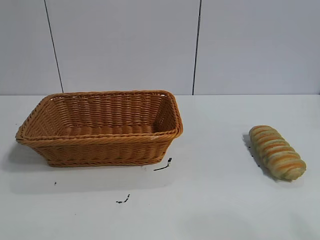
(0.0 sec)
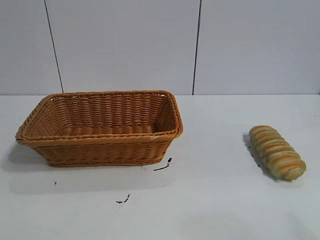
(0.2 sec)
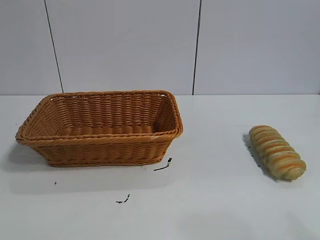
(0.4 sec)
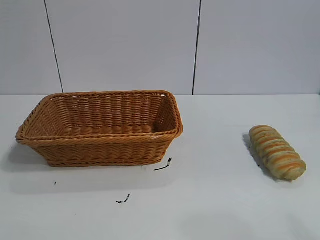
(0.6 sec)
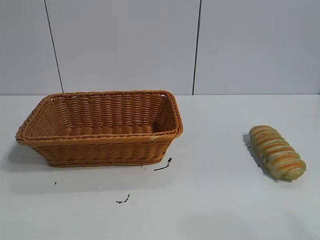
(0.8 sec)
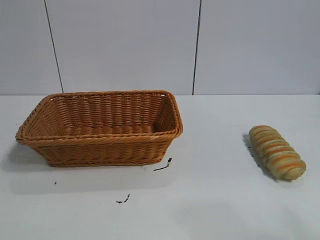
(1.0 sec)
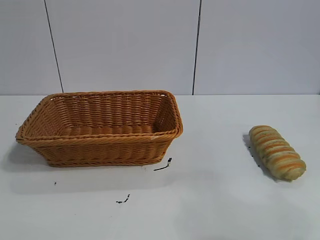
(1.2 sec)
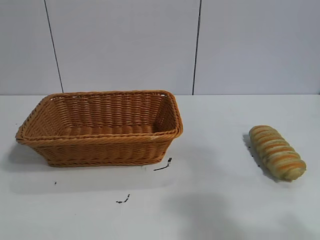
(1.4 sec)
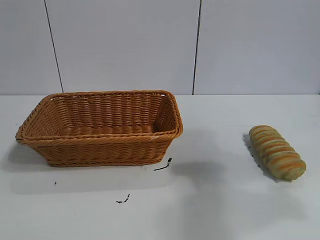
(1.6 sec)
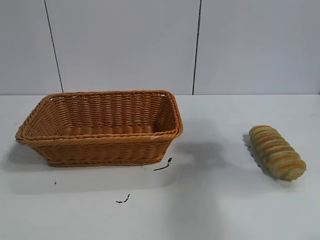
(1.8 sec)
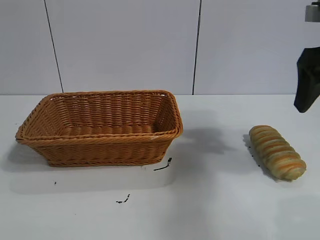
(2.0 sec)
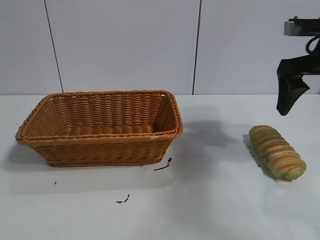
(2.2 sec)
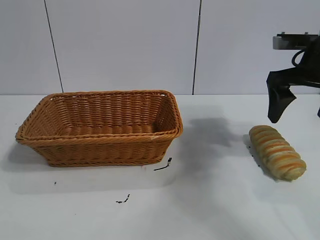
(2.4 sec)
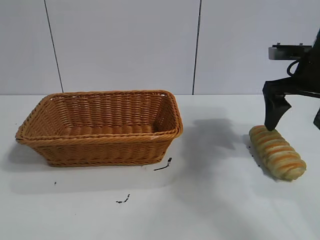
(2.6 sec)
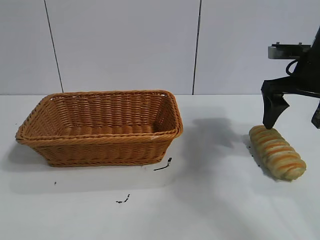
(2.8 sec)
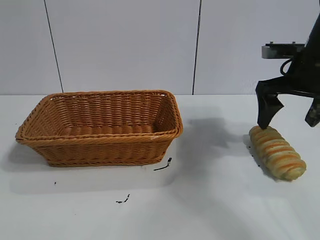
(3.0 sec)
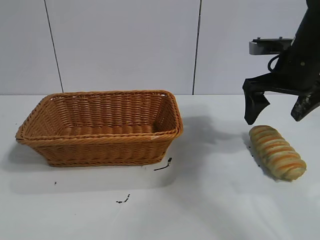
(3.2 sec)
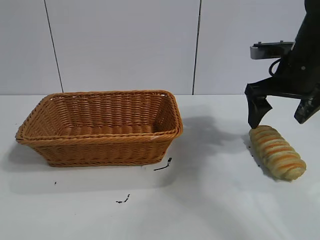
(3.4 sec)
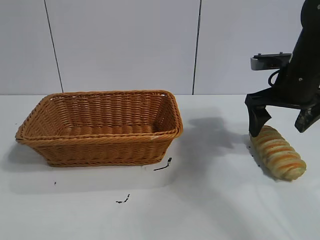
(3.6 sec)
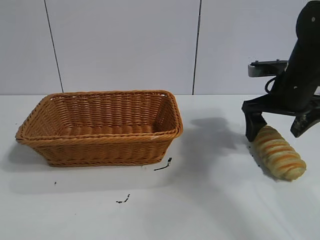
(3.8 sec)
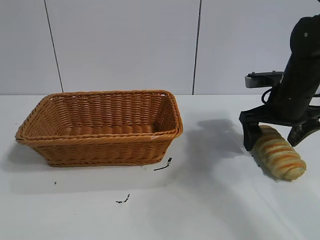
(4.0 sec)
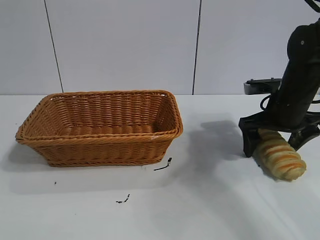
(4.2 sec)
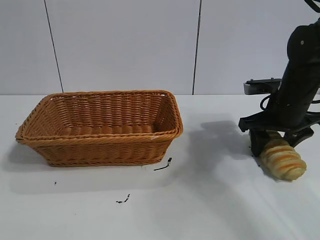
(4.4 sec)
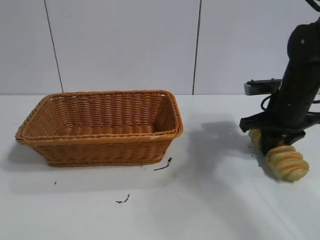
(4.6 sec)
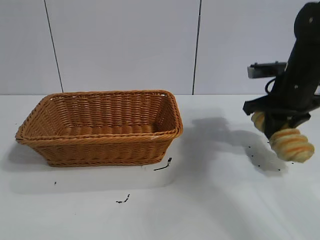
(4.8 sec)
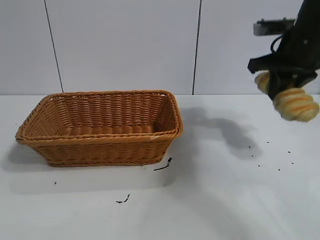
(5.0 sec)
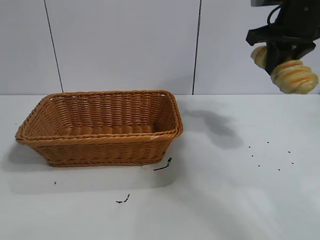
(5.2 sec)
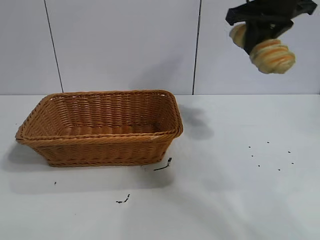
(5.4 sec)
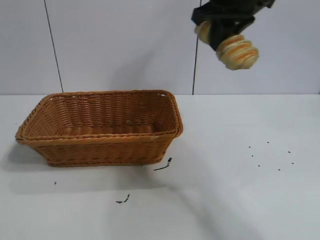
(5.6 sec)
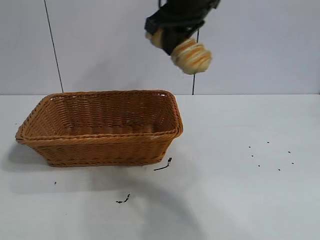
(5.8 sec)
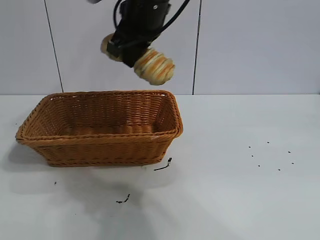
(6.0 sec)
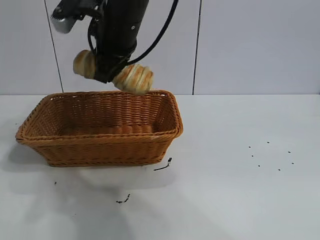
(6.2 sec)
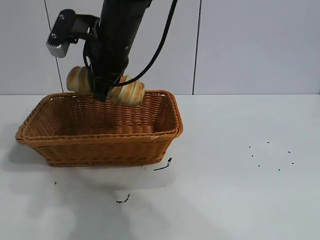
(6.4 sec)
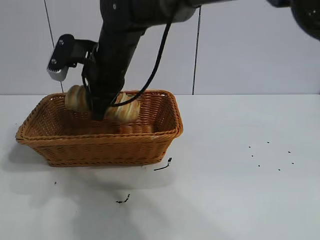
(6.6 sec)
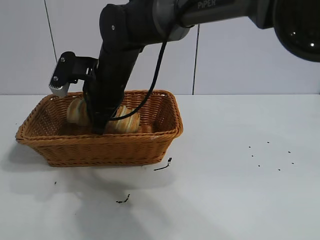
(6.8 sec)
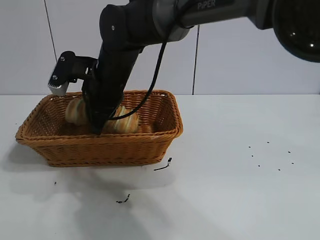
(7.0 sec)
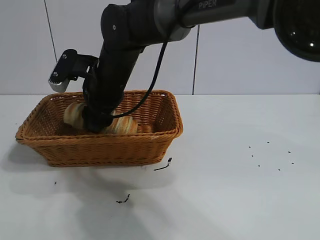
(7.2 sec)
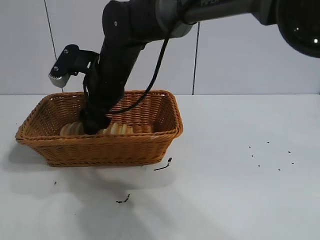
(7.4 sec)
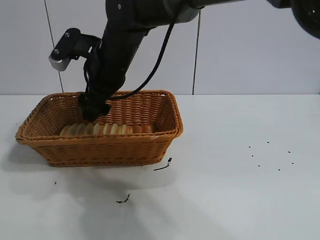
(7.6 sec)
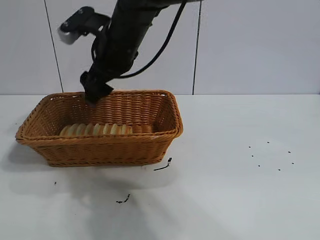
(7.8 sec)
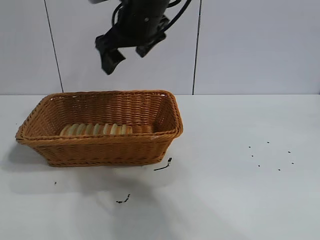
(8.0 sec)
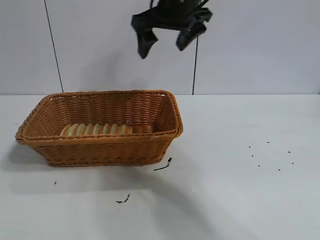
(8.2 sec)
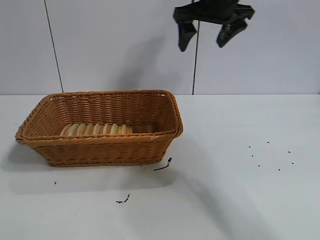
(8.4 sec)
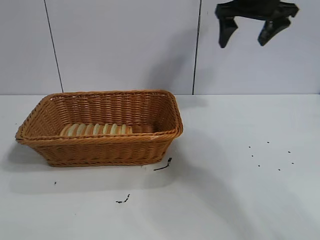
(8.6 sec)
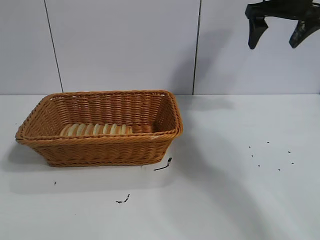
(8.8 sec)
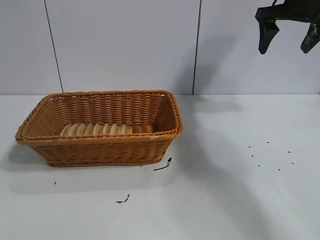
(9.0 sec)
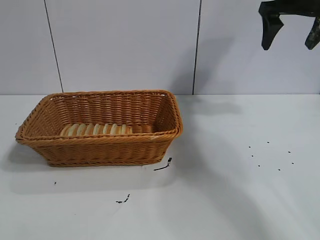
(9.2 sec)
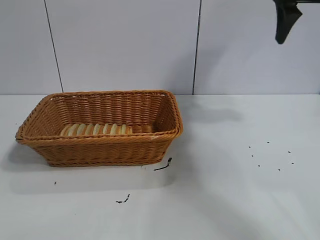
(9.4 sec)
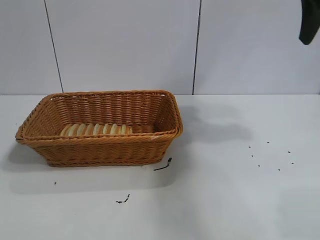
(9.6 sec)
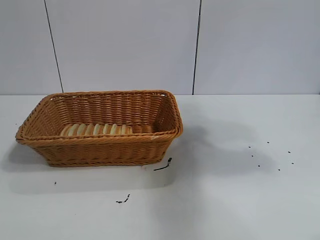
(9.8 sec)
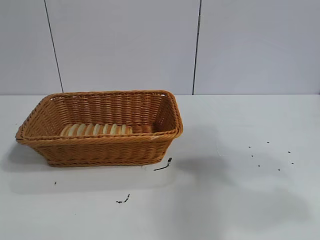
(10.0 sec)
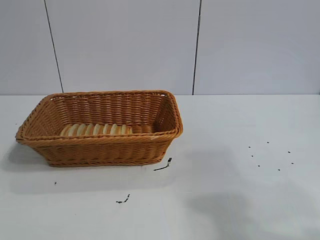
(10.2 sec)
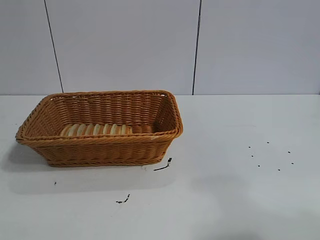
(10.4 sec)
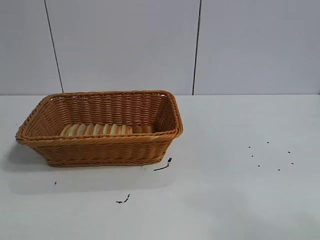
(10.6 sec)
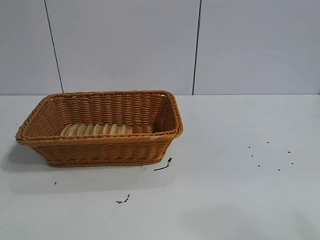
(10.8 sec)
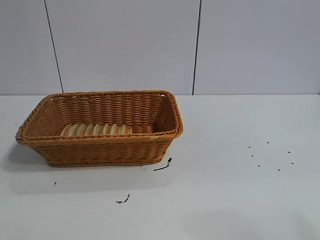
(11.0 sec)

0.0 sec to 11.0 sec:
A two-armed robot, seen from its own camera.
Task of the whole recording: pick up the long bread and put it into the basket.
Step, 2.0 sec to 4.8 sec: Grasp the long bread with right gripper.
Step, 5.0 sec to 7.6 sec: Place the long bread in the basket with right gripper.
